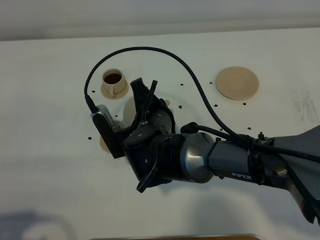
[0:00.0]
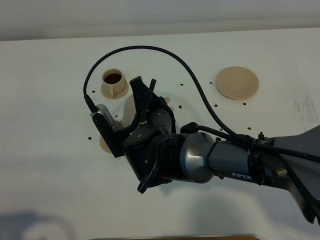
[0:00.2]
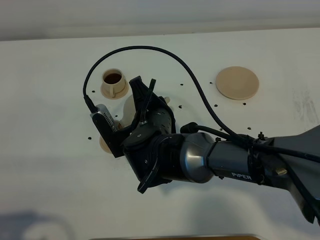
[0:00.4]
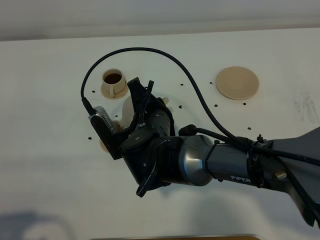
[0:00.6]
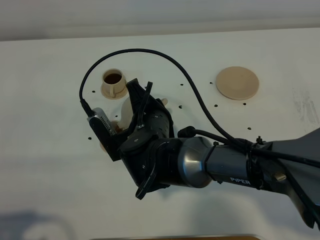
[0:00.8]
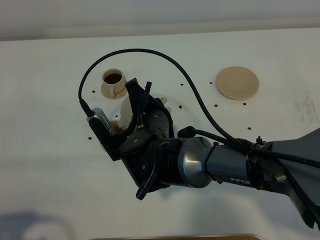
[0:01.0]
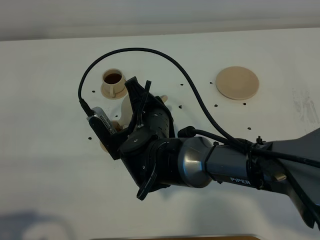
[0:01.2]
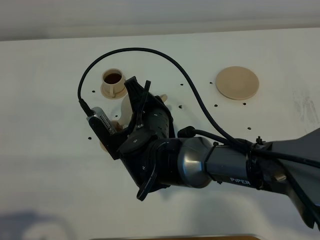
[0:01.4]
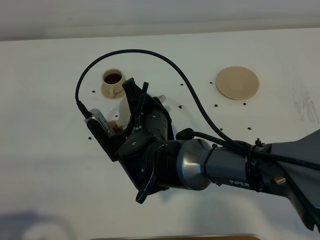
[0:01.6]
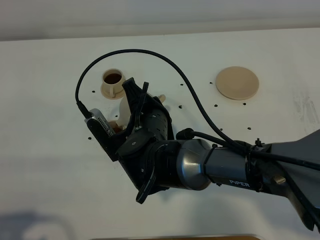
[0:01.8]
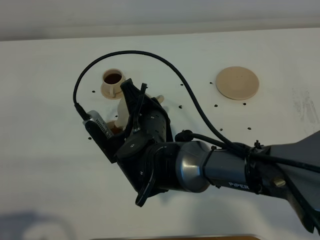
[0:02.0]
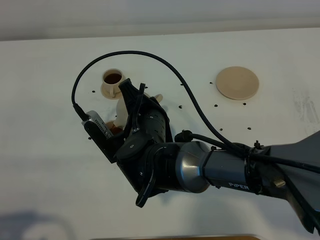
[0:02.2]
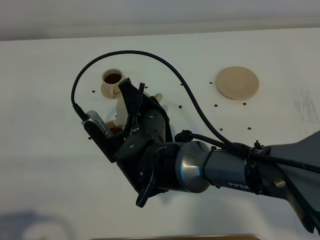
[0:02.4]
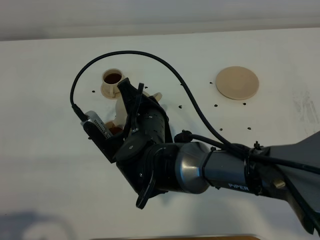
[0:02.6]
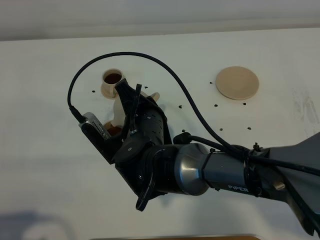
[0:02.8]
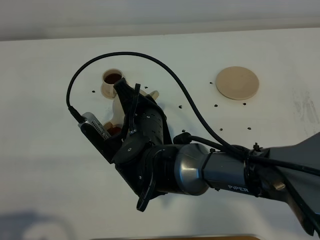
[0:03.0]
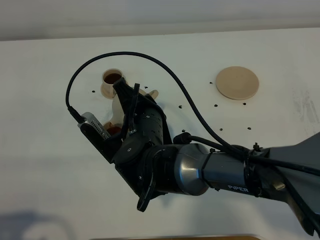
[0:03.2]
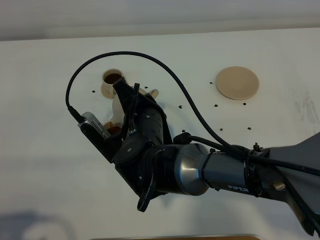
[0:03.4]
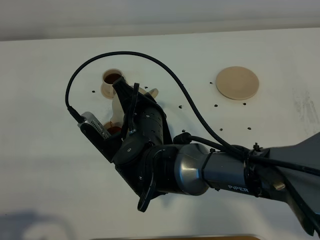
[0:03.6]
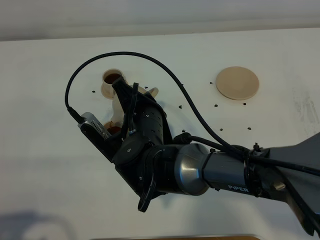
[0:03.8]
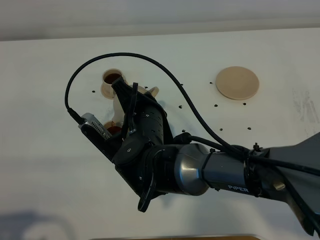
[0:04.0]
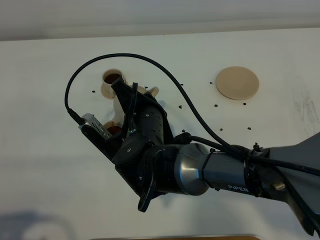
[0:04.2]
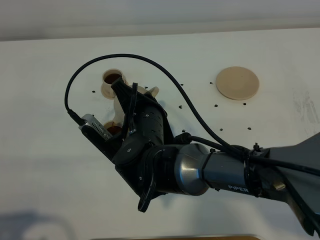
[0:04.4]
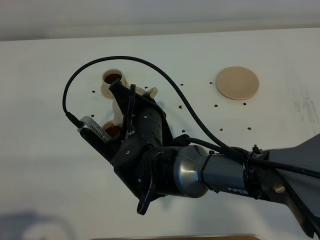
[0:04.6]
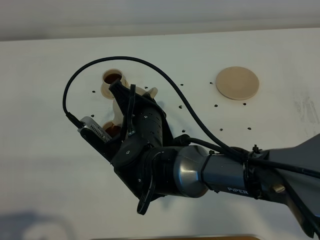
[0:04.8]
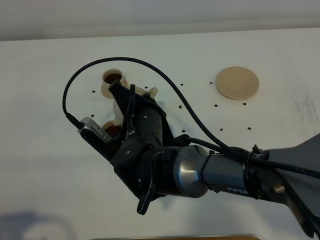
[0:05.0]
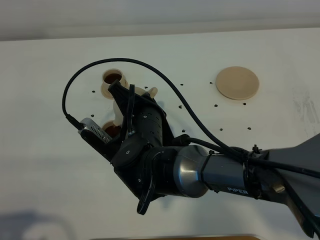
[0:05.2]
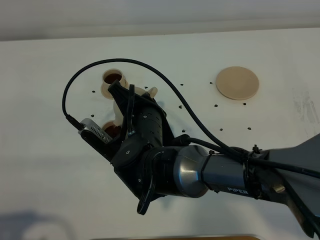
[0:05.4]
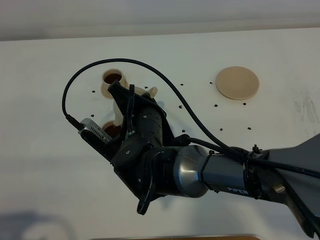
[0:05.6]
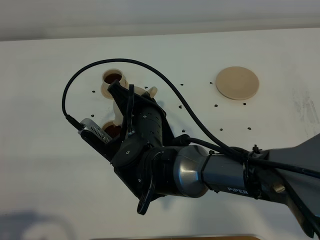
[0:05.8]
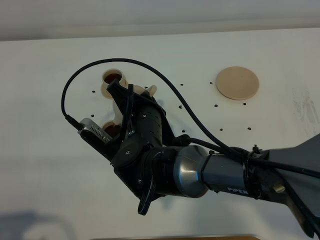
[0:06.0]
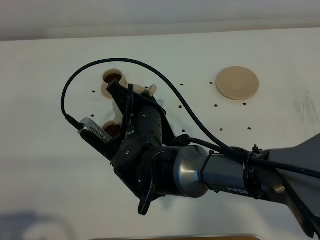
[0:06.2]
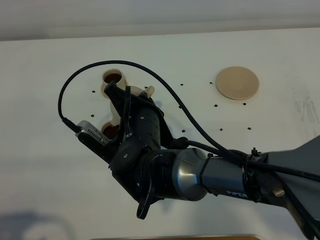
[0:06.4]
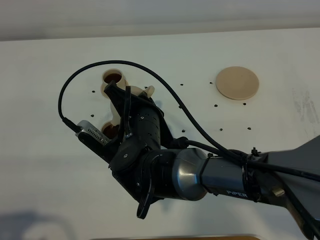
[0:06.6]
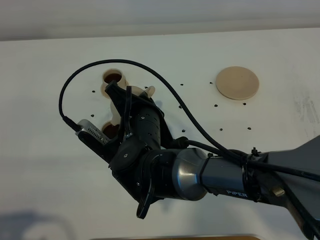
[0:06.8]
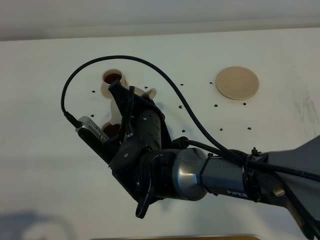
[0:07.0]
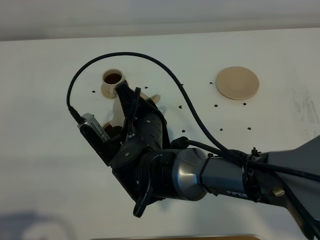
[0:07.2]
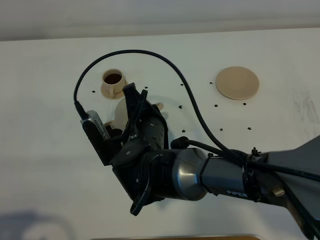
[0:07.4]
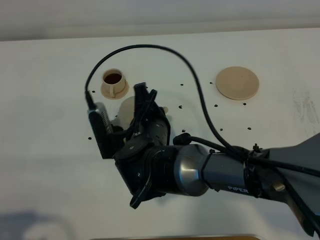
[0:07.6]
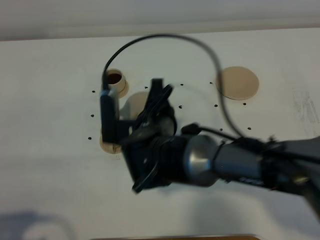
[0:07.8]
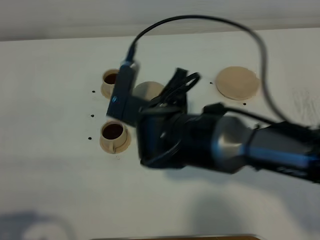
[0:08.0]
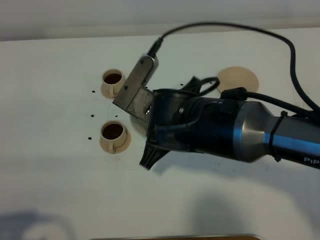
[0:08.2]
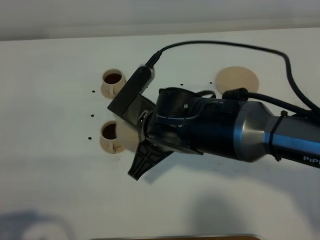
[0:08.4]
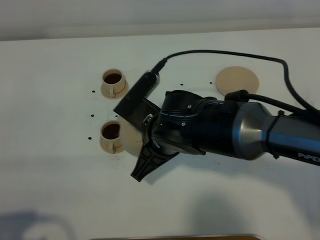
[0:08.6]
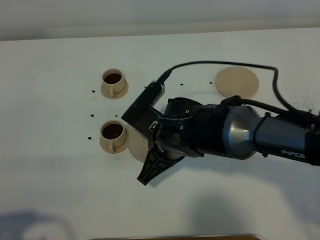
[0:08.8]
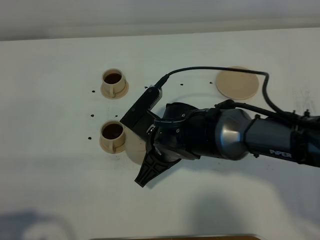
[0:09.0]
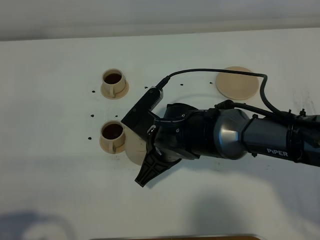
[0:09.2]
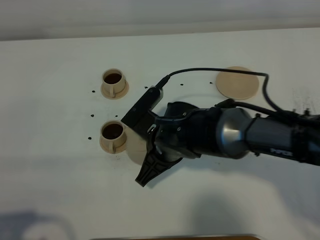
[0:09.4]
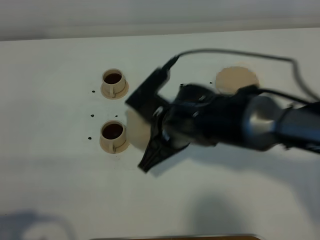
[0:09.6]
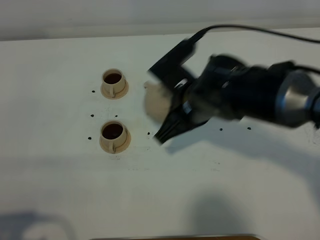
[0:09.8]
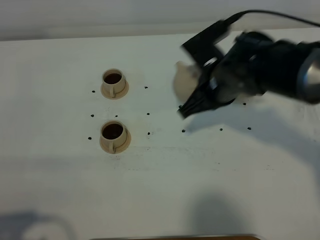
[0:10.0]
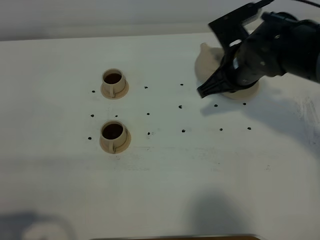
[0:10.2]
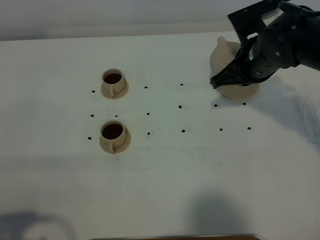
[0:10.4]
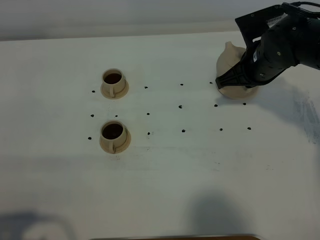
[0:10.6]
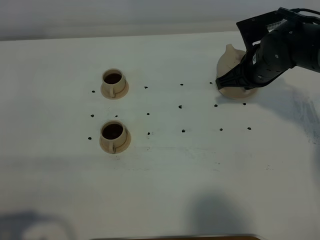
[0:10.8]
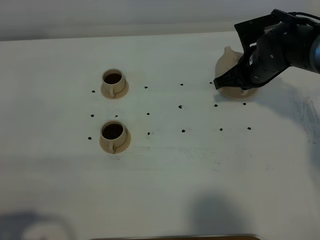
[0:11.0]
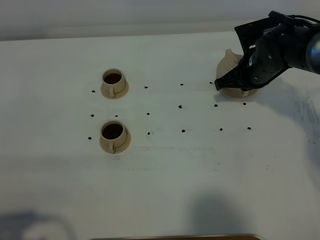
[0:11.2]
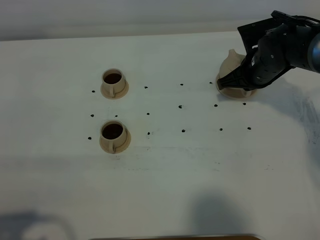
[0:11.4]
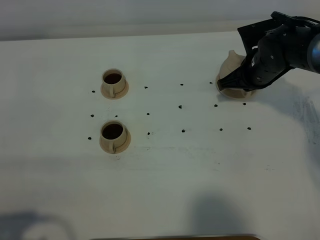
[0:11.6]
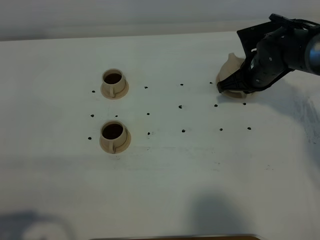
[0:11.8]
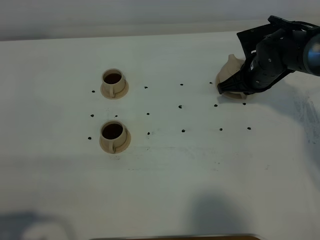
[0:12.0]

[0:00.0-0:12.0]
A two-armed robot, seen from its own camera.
Task of the whole recording: grasp the brown teapot and pour the tea into the two brown teacups one by one, put the brown teapot back in its original place.
Step, 0:00.0 to 0:07.0: Pour tea into the teacup with the right gripper.
0:00.0 to 0:03.0: The grippers move only a little.
0:03.0 to 0:04.4: Both grippers stay put.
0:04.4 to 0:06.0: Neither gripper changes place.
0:09.0 to 0:10.4: The right gripper travels to the right, forward and upward by some 20 cm.
0:10.4 to 0:12.0: The right gripper travels downward by approximately 10 cm.

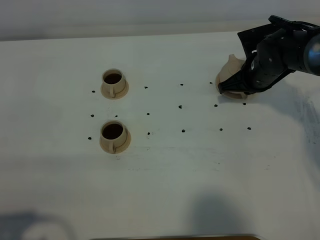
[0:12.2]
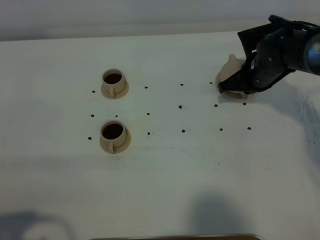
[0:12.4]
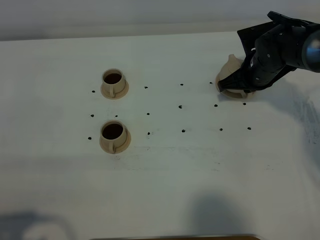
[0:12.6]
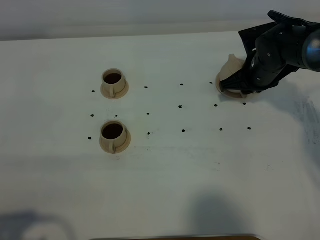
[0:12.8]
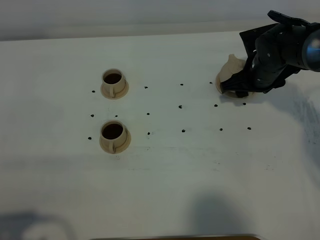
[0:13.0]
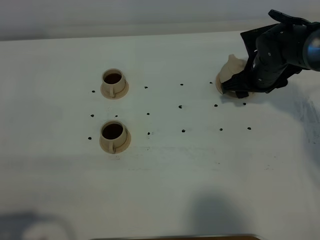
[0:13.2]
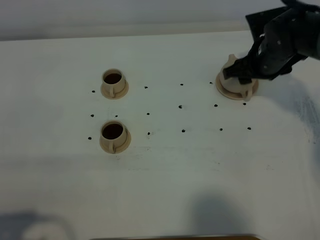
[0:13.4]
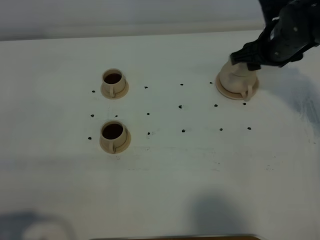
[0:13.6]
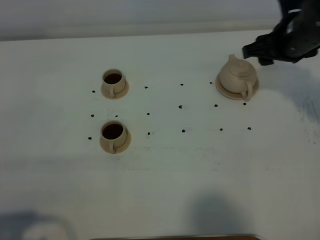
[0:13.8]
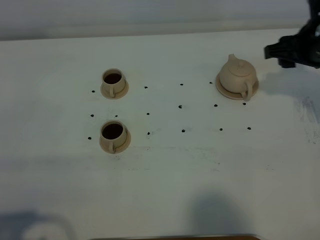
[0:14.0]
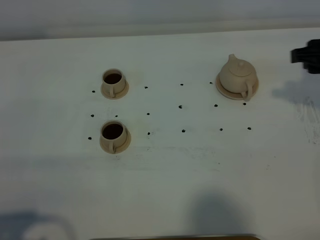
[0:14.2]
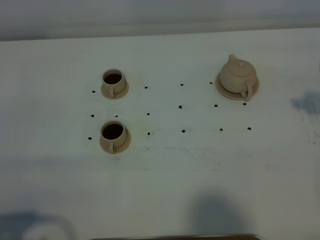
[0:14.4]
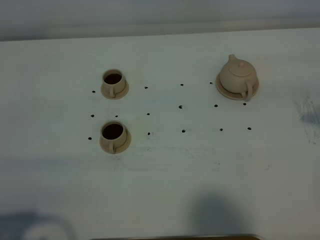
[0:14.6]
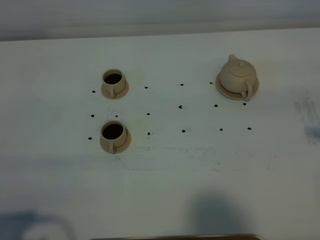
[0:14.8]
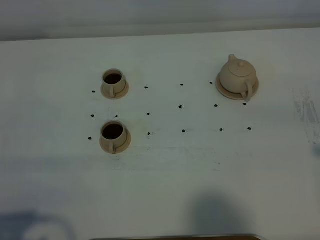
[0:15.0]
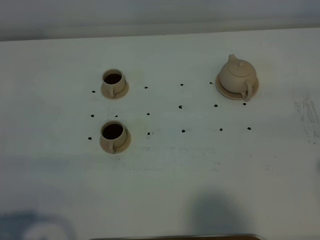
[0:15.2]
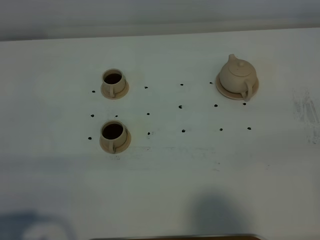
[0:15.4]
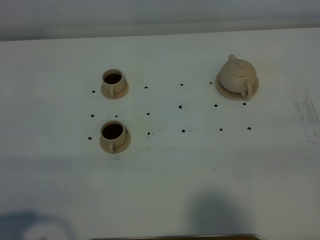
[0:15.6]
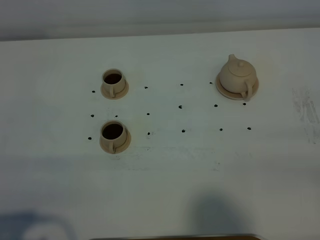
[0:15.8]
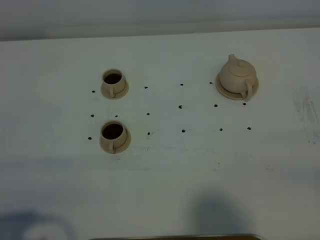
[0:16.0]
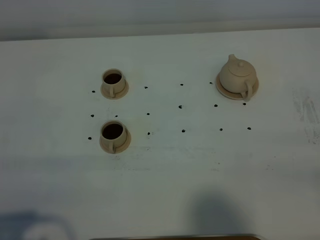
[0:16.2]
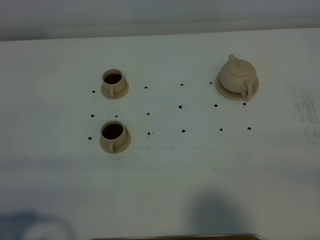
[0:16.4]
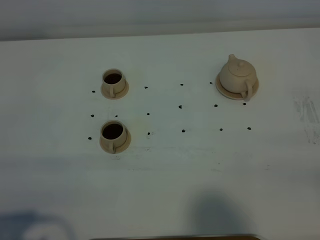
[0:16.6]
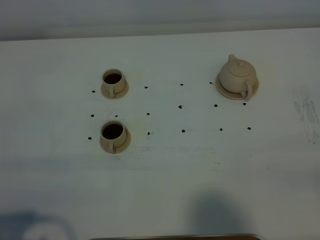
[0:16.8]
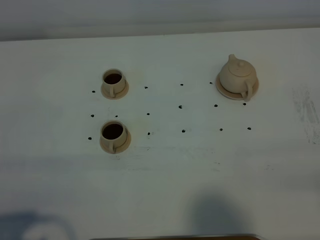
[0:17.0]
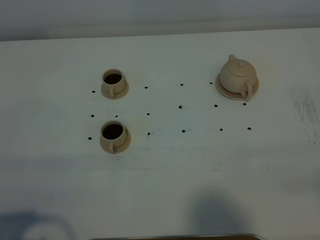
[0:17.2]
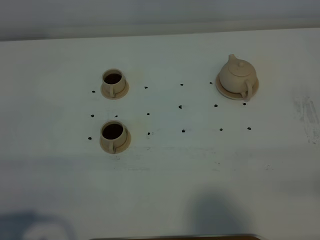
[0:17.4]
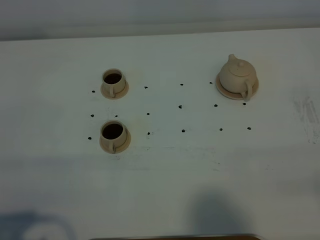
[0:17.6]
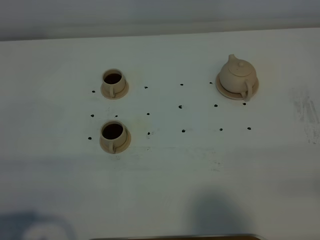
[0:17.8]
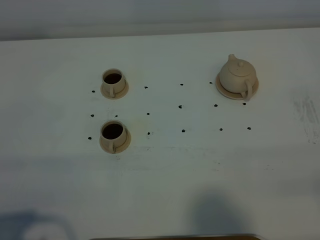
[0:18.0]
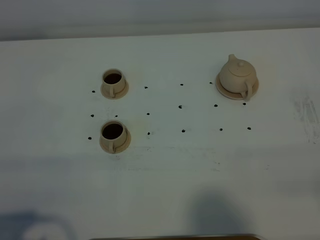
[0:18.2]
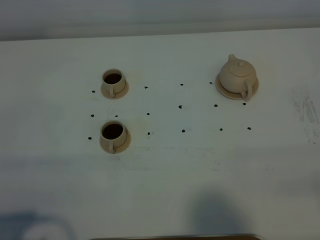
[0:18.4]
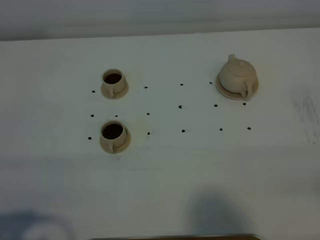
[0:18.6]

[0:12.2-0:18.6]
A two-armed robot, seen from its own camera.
Task of the whole recording: grasp the brown teapot and pour the tea into the two brown teacups one by one, put the brown teapot back in its original place.
0:12.2 to 0:13.8: The right gripper is displaced upward by about 10 cm, and opens.
0:13.8 to 0:15.4: The right gripper travels backward by approximately 30 cm.

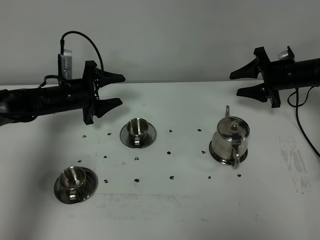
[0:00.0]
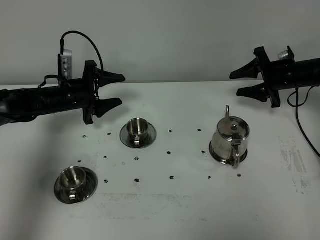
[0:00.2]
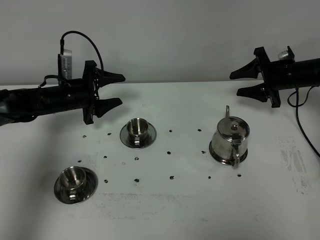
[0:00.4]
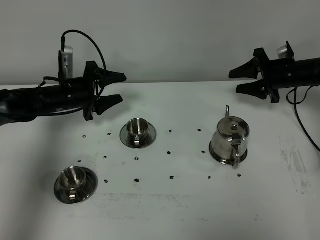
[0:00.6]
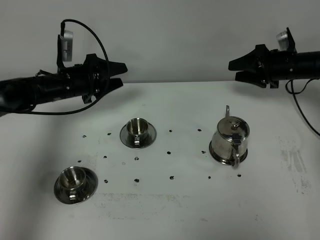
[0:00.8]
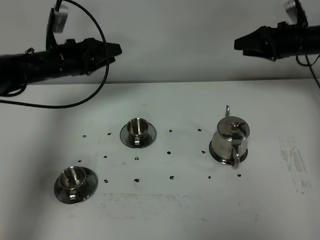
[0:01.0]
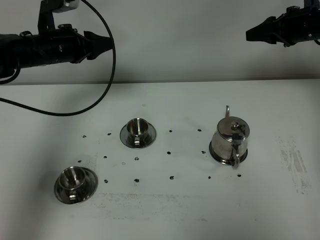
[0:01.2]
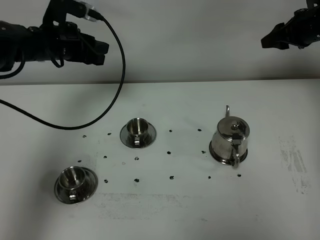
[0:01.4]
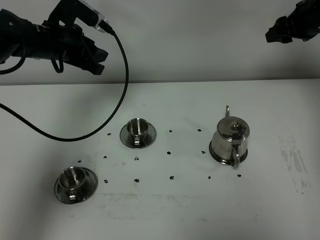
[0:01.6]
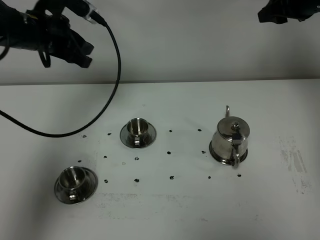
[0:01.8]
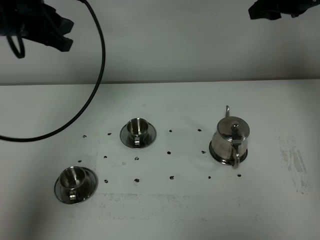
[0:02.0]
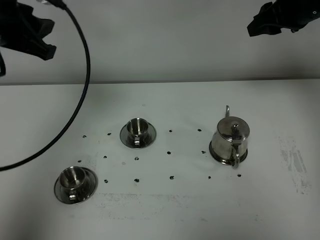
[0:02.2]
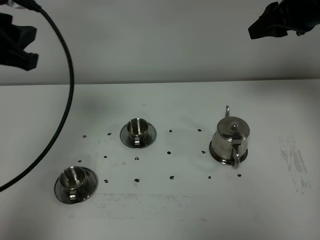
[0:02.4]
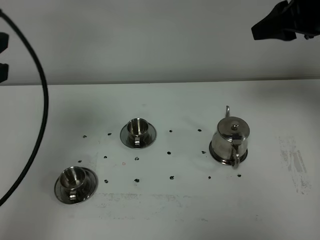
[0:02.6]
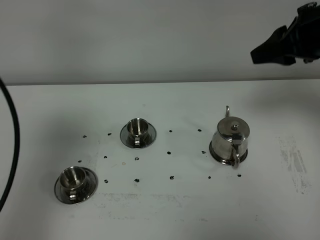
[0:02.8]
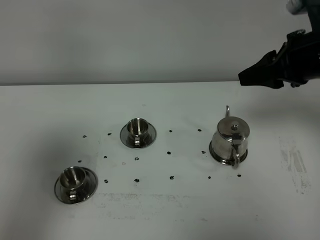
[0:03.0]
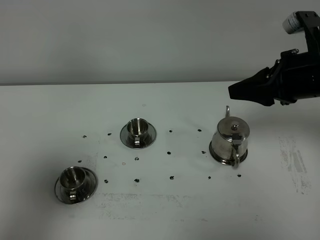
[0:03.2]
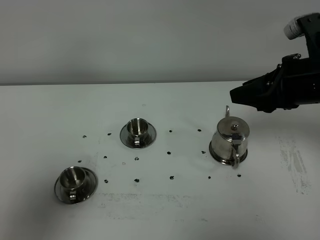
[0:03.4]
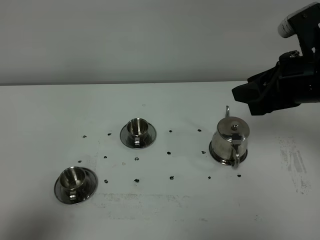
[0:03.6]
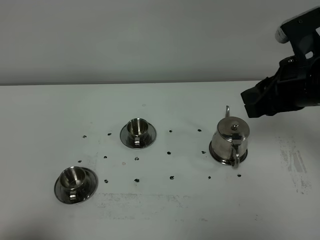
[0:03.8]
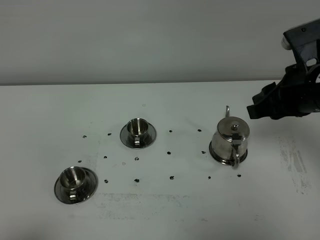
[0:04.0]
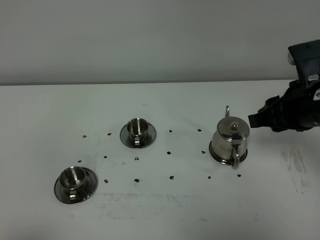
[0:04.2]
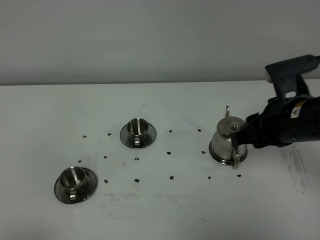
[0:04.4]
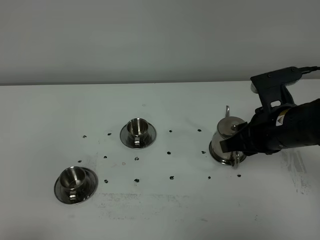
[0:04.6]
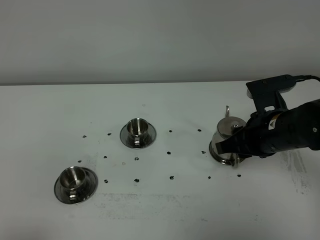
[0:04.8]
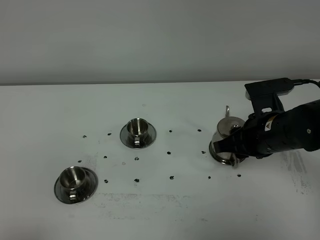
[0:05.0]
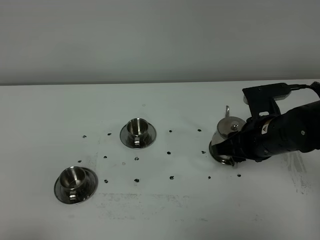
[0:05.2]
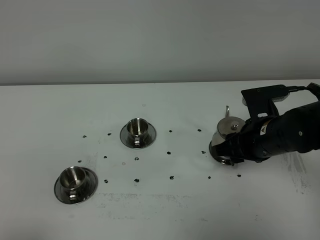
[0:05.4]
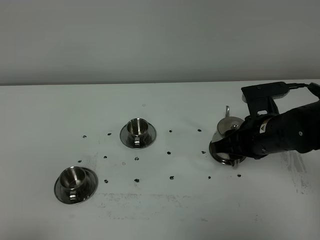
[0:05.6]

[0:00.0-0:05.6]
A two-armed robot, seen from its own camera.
Task of the whole recording: grasp the stainless steel teapot and pour the tea into the two stainless steel teacups one by one, put the stainless steel teapot back in its original place.
0:00.0 to 0:01.4: Both grippers move upward, roughly 15 cm.
0:01.4 to 0:02.8: The right gripper travels backward, upward and to the left by approximately 20 cm. Meanwhile the left gripper shifts some 35 cm backward and upward.
0:02.8 to 0:04.2: The left gripper travels backward and downward by some 25 cm, and closes up. Meanwhile the right gripper shifts approximately 10 cm downward and backward.
0:04.2 to 0:05.6: The right gripper heads downward, covering roughly 10 cm.
